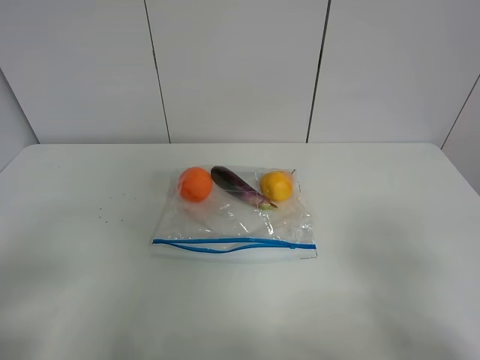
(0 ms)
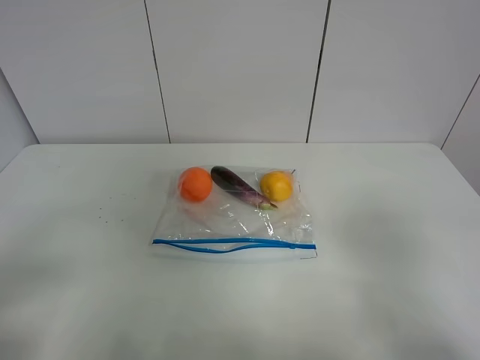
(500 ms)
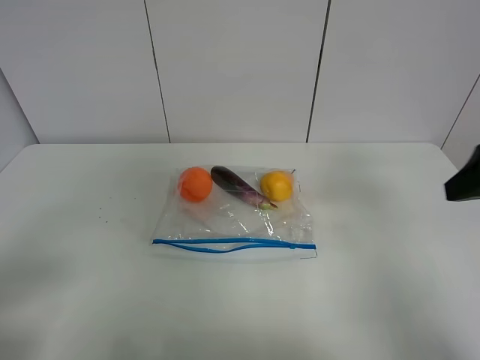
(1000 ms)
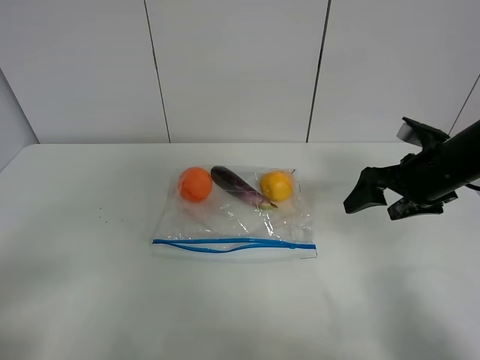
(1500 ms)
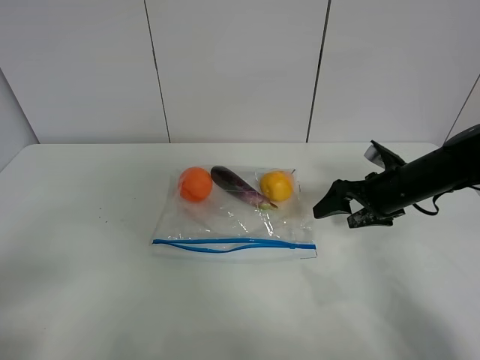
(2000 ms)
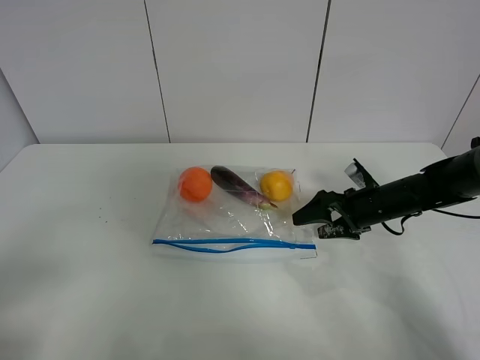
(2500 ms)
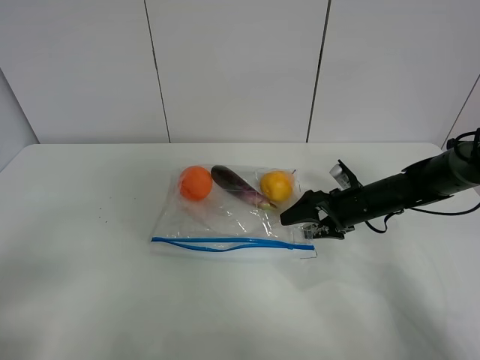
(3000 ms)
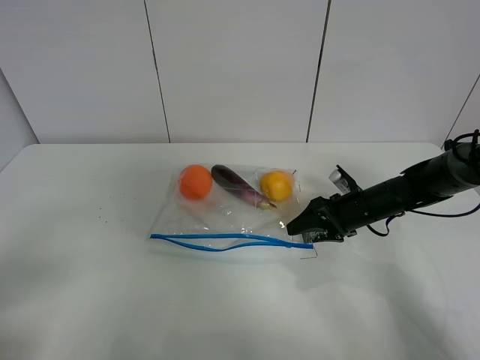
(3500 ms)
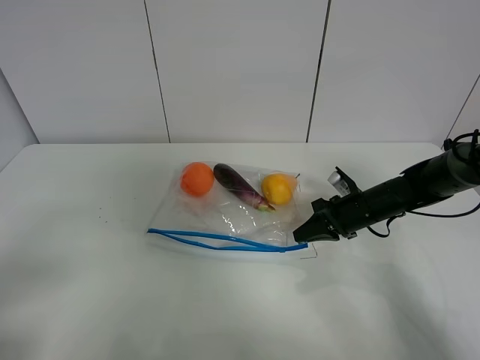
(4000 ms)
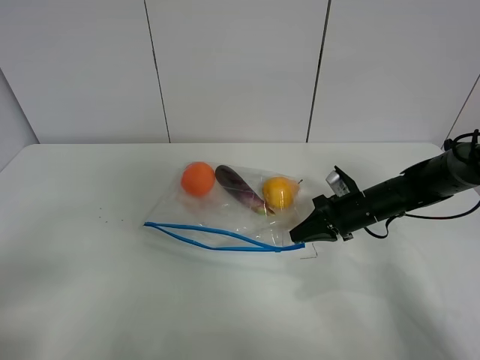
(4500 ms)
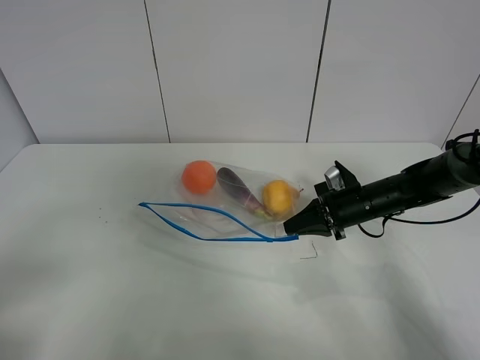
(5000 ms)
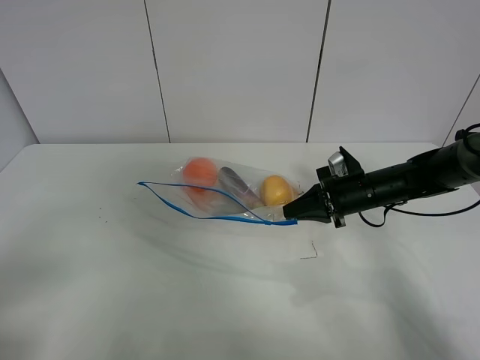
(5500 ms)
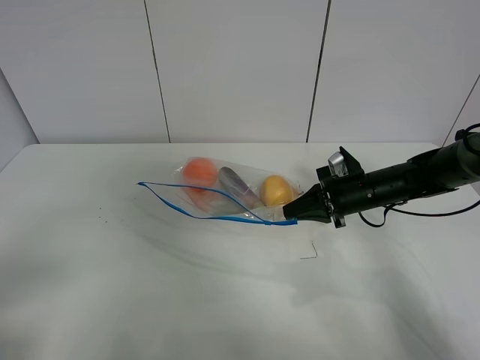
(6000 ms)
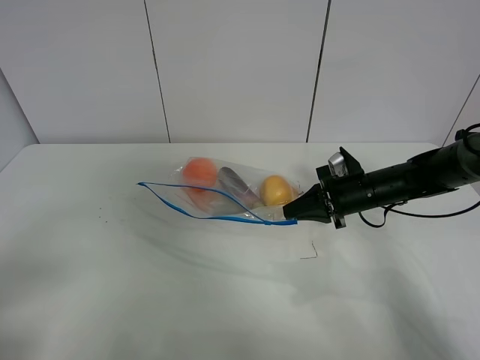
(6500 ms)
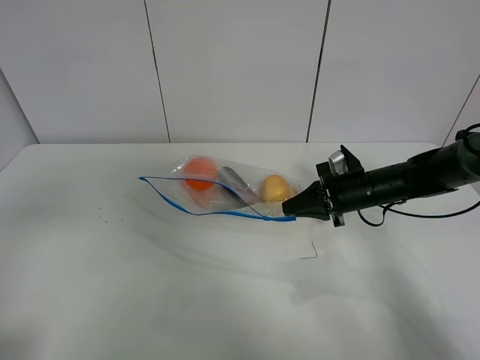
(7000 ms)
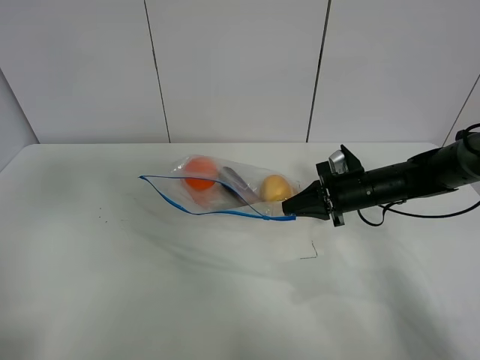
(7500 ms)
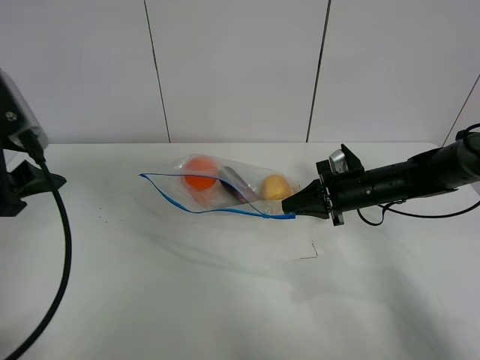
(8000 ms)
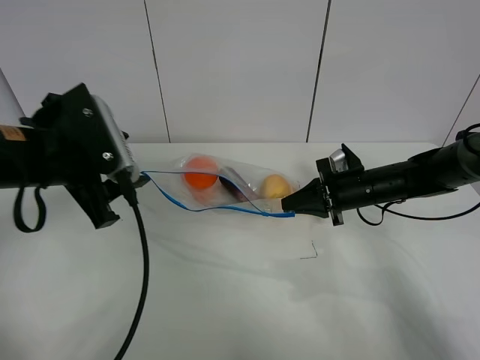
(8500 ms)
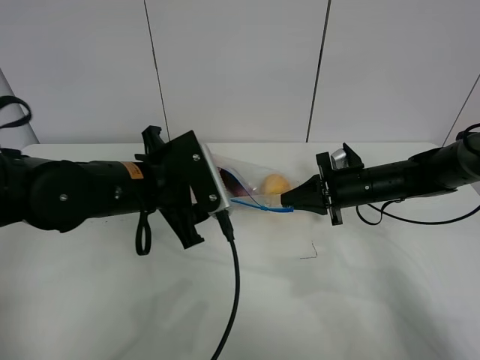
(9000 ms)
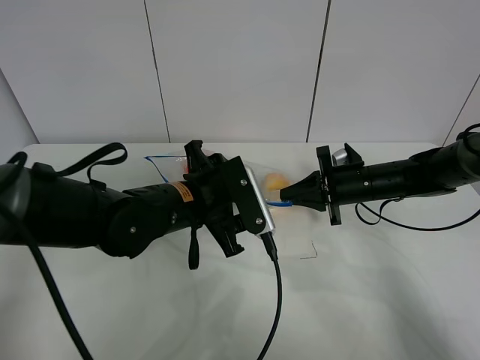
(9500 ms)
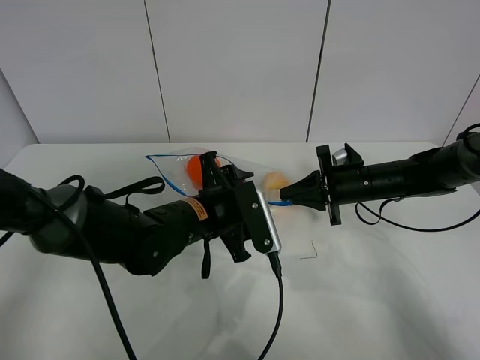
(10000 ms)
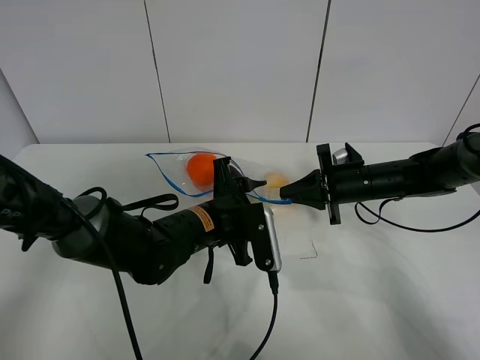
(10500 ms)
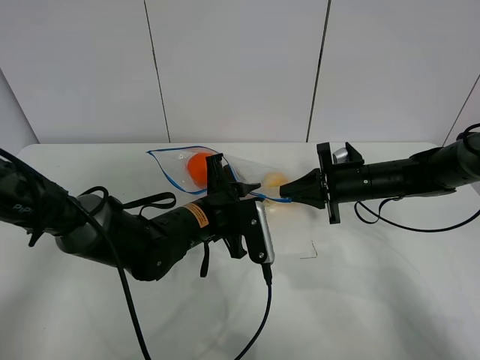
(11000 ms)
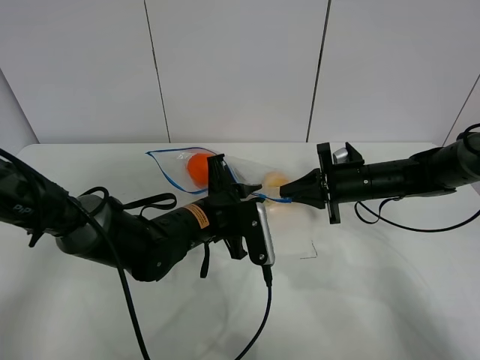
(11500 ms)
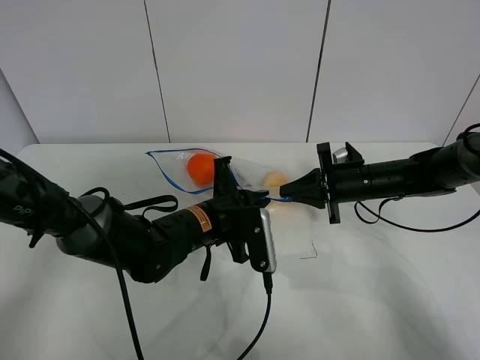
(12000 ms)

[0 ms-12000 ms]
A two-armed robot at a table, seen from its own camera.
Step, 0 ms to 3500 ms: Grasp the fruit bag with right gripper.
Step, 4000 ms to 5500 ms: Lift the fruit bag with your right gripper.
0 ms to 2000 ms: The right gripper shifts approximately 35 cm forward and downward.
2000 ms to 4000 ms: The right gripper goes roughly 5 cm downward, and closes up.
4000 ms to 6000 ms: There are only small adjustments of the grippers.
6000 ms to 8000 ms: The left gripper goes some 20 cm forward.
8000 ms to 10000 ms: The left gripper heads to the right and downward, covering roughly 30 cm.
10000 ms to 12000 ms: The left gripper closes up.

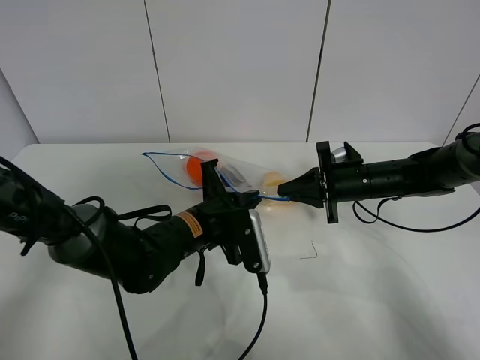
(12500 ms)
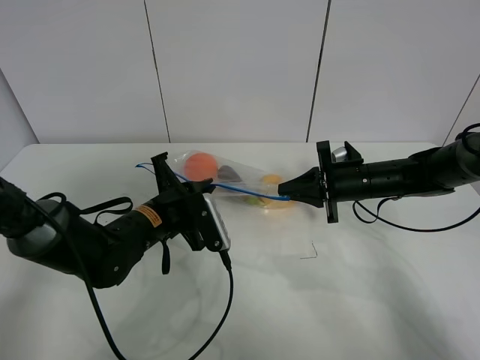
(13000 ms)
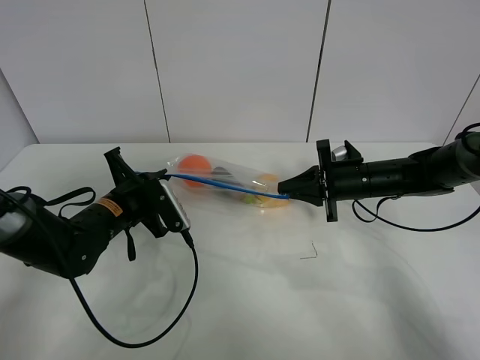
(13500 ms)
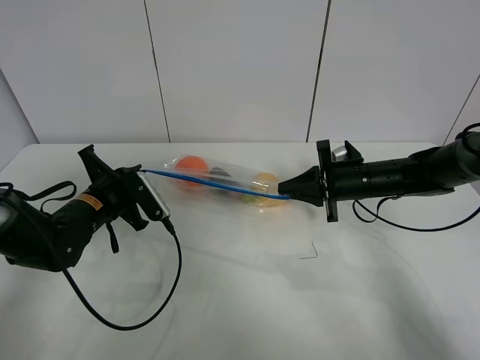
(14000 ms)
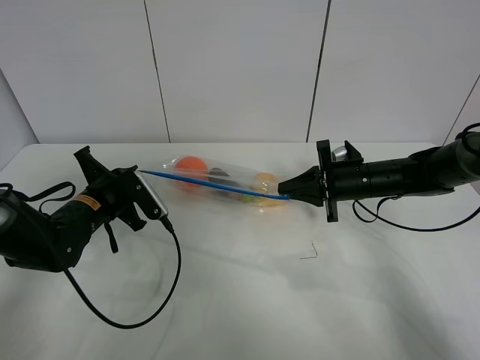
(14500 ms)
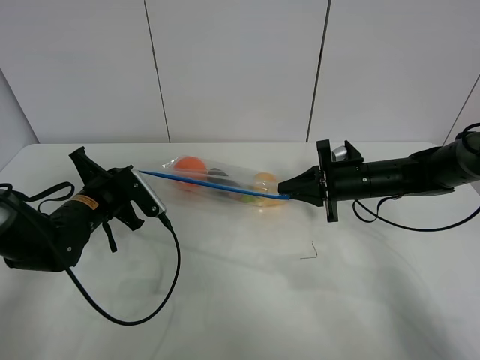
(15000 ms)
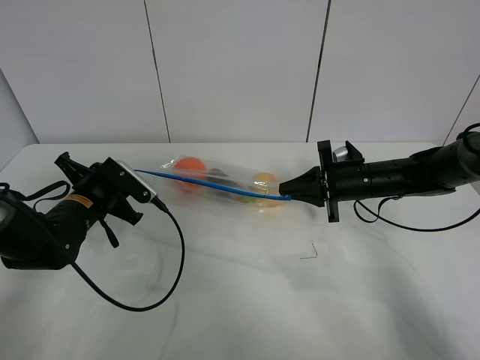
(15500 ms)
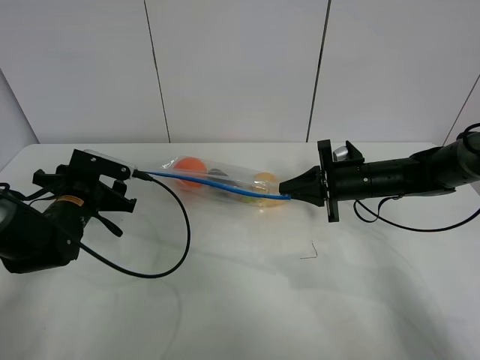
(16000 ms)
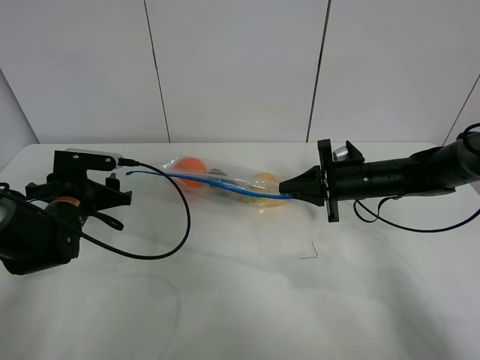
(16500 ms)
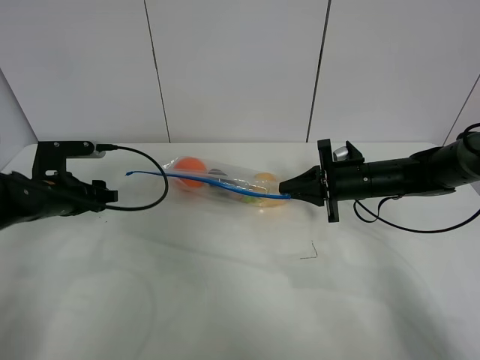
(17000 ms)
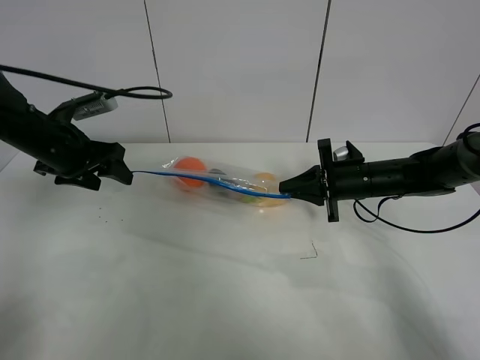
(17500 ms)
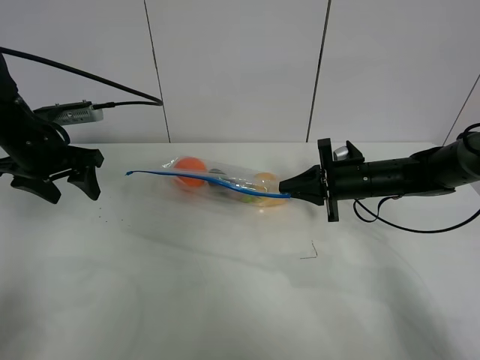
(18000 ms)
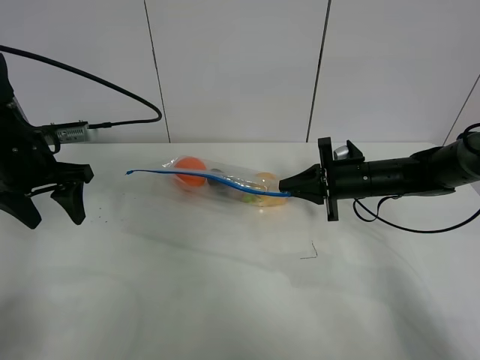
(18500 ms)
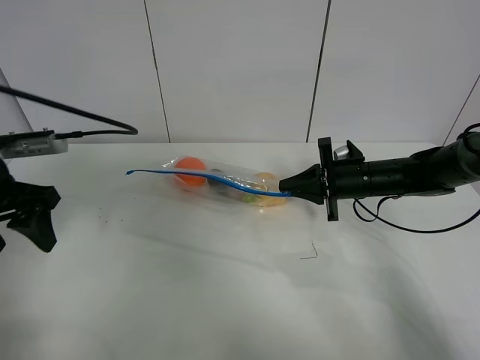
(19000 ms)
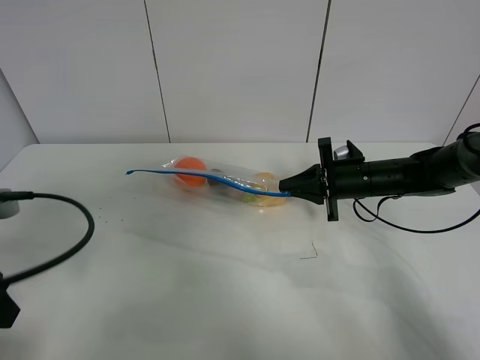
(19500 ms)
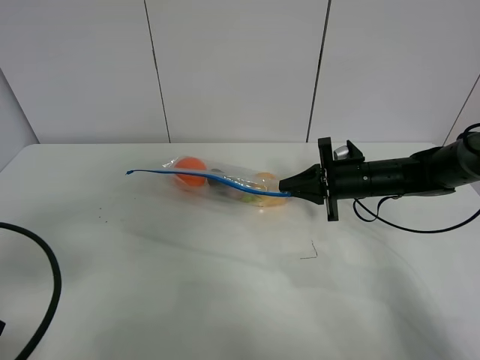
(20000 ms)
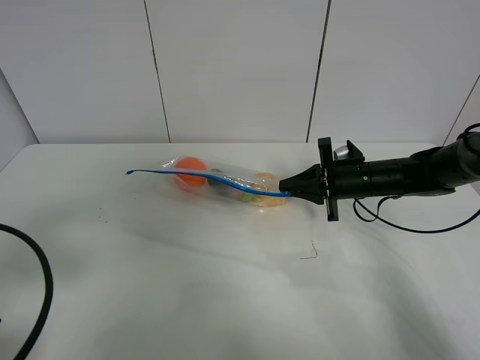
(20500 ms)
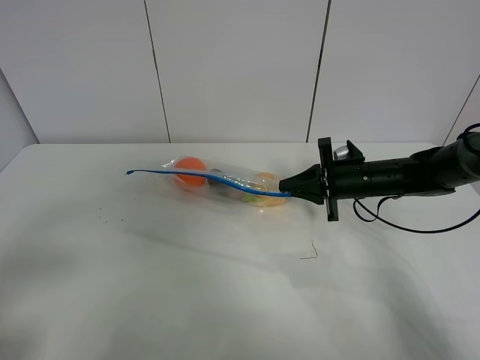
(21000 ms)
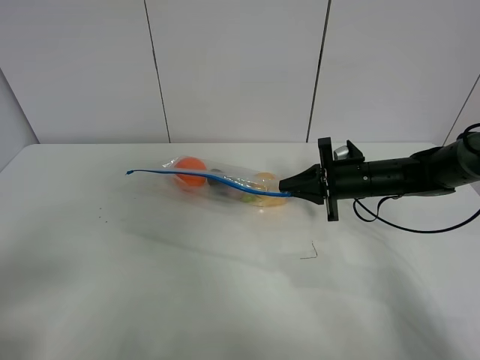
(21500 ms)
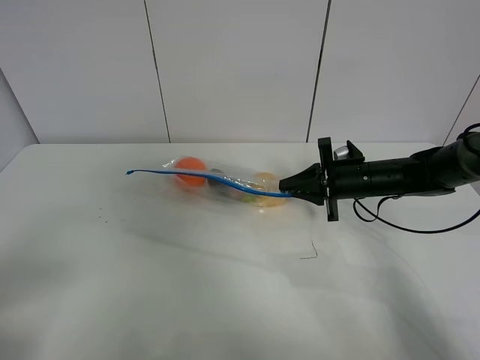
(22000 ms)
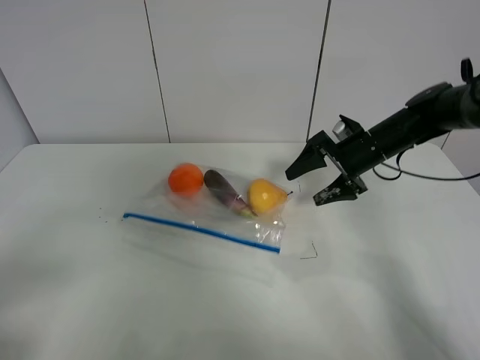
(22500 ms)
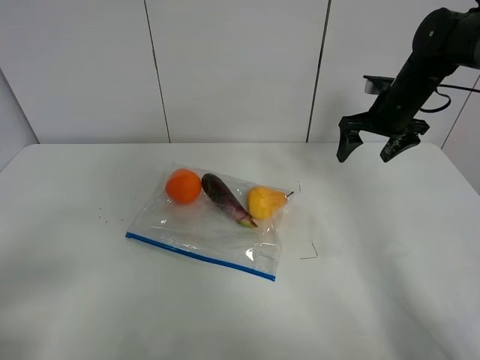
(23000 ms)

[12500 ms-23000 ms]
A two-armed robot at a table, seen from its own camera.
Step, 12500 ms to 15500 ms: Pull the fruit bag with left gripper.
12500 ms to 14500 ms: The left gripper moves to the left, approximately 15 cm.
14500 ms to 16500 ms: The left gripper opens.
16500 ms to 19000 ms: The left gripper shifts some 15 cm upward and backward.
19000 ms to 21000 ms: The left gripper travels backward by about 20 cm.
21000 ms to 23000 ms: The right gripper shifts some 15 cm upward, forward and to the right, and opens its fingers.

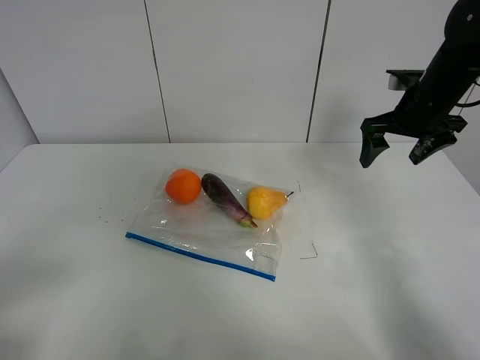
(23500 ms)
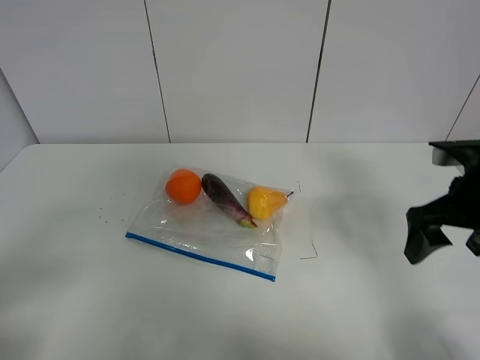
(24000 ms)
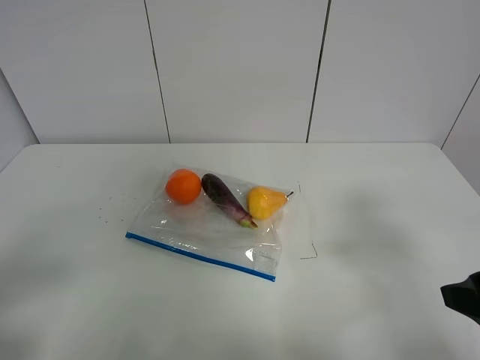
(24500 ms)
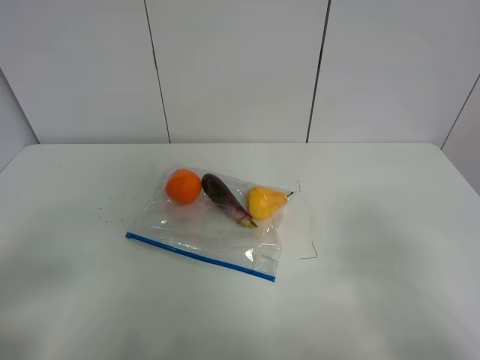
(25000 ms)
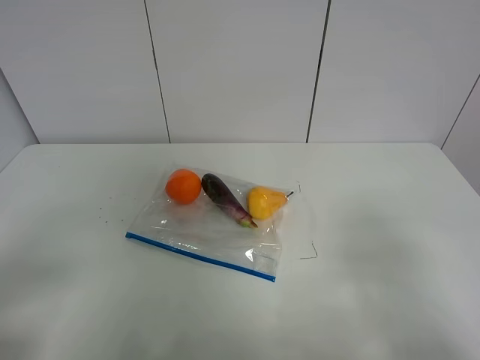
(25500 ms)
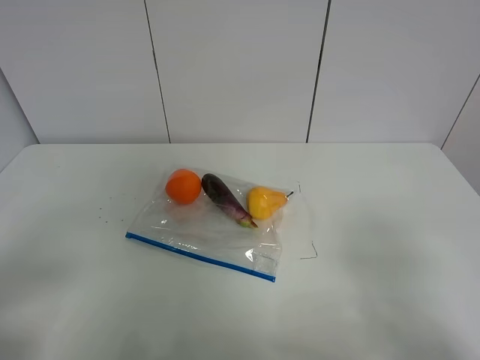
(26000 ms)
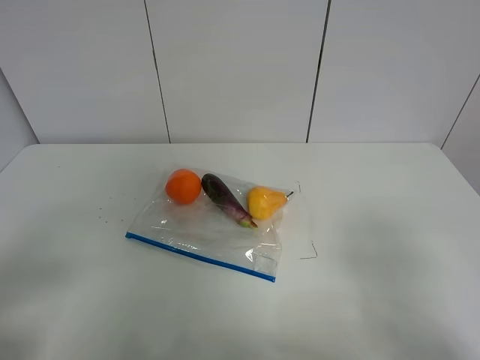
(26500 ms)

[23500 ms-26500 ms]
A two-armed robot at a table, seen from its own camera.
23500 ms to 25000 ms: The right gripper travels backward by roughly 35 cm.
